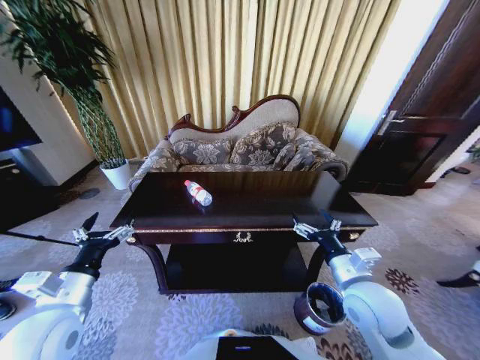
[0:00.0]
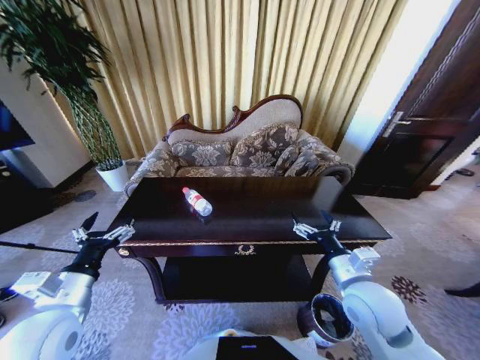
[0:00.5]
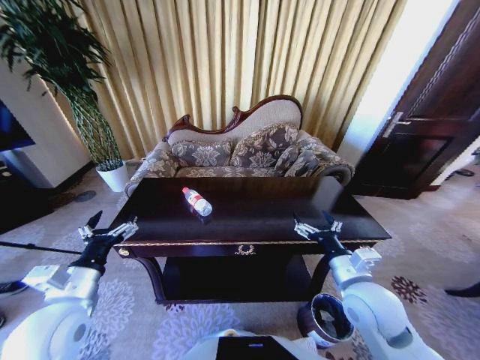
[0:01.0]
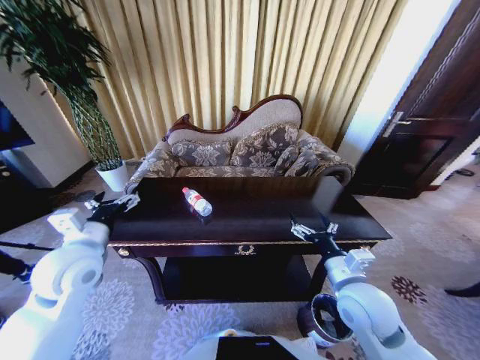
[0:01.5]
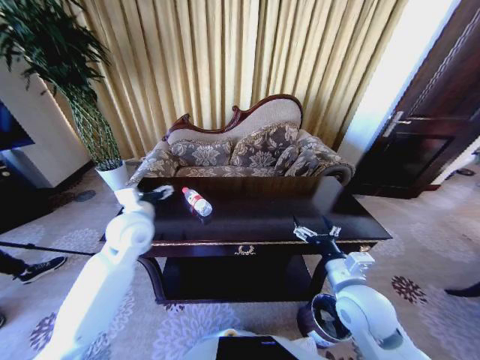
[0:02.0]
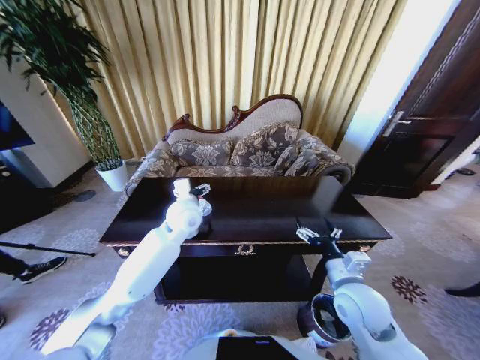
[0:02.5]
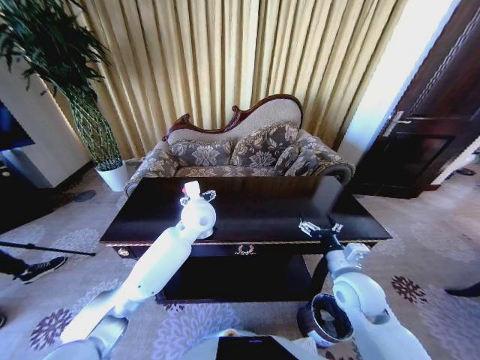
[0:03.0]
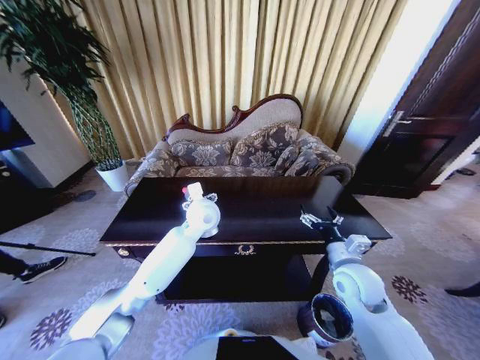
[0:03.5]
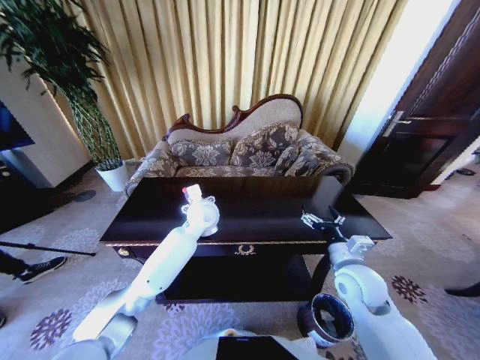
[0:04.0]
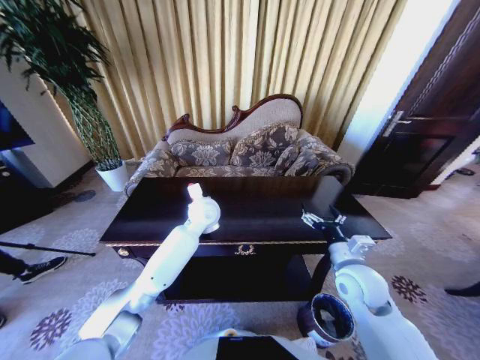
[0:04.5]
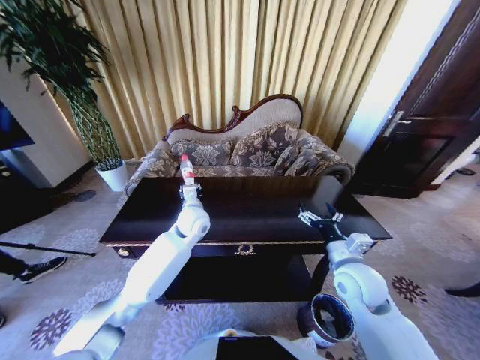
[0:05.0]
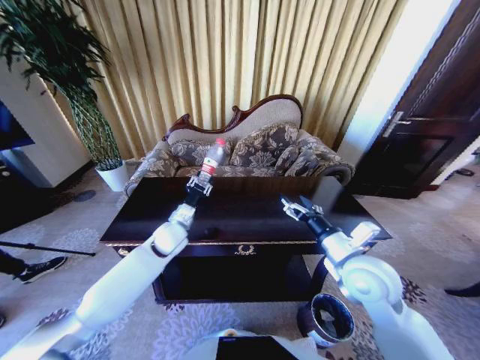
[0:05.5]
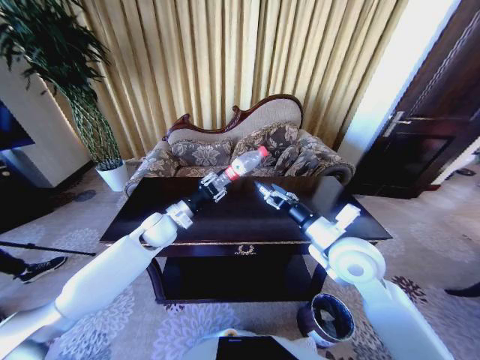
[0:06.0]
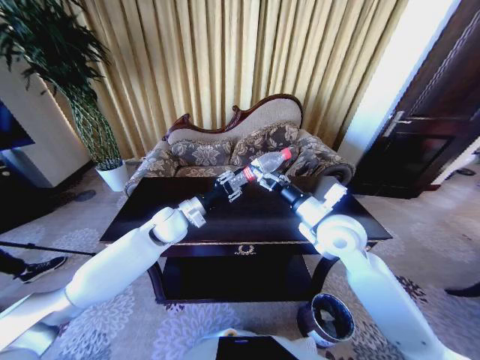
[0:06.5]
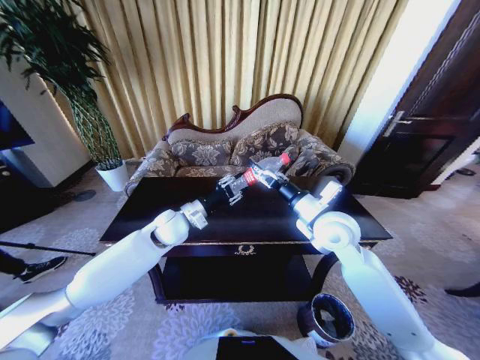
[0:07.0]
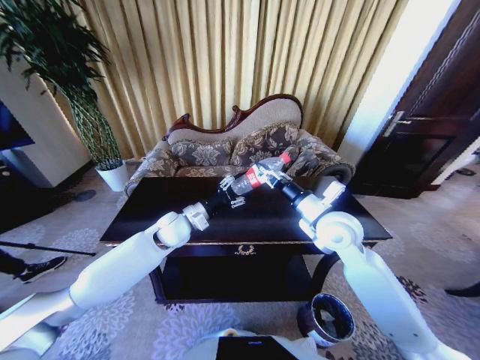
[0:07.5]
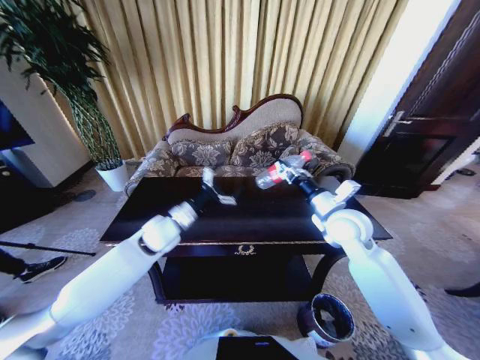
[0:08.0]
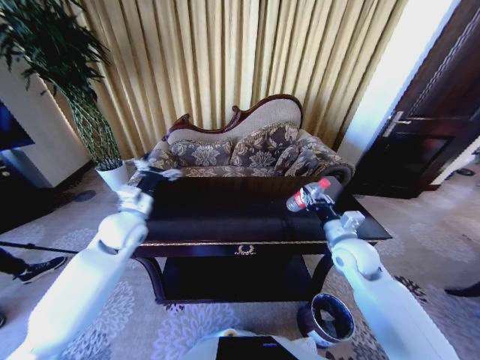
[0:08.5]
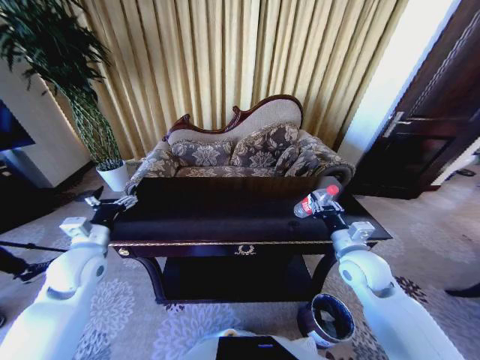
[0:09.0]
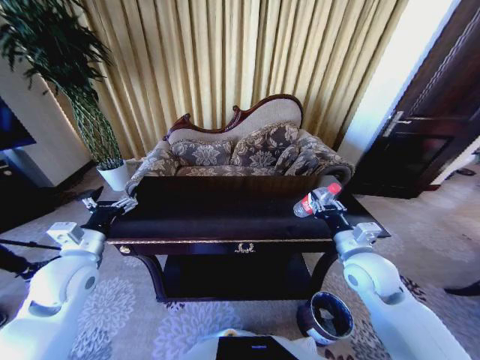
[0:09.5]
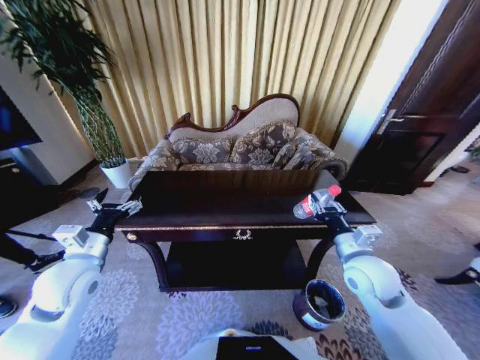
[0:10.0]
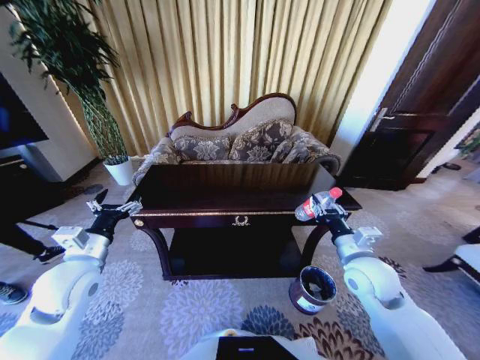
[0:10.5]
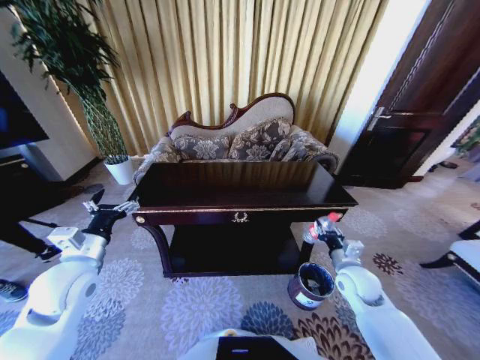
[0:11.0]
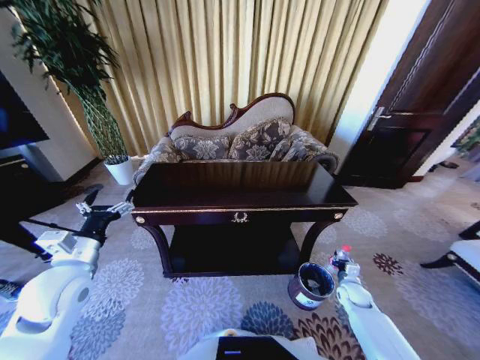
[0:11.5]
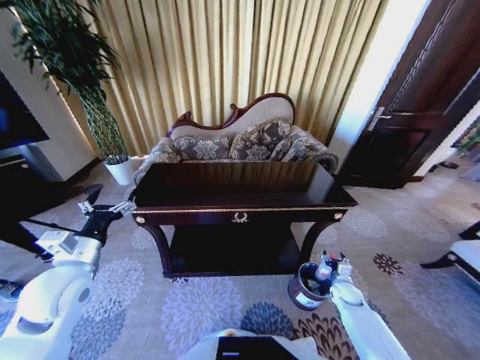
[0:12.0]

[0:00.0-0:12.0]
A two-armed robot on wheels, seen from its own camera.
Task of the whole recording: Move to the front of the table and place the trash on the table into the trash bin.
0:00.0 to 0:02.0: The left gripper moves forward, roughly 20 cm.
0:02.0 to 0:04.0: The right gripper moves forward, roughly 5 cm, while the left gripper travels to the right and forward by approximately 20 cm.
0:04.0 to 0:06.0: The left gripper heads to the left, covering roughly 15 cm, and closes up; the right gripper is displaced upward and to the left by about 10 cm.
0:06.0 to 0:08.0: The left gripper opens up. Meanwhile the right gripper travels forward by roughly 10 cm, and closes its fingers.
0:08.0 to 0:10.0: The left gripper goes approximately 20 cm to the left and backward. Meanwhile the right gripper shifts roughly 10 cm backward and downward.
0:10.0 to 0:12.0: The right gripper is displaced downward and to the right by about 30 cm.

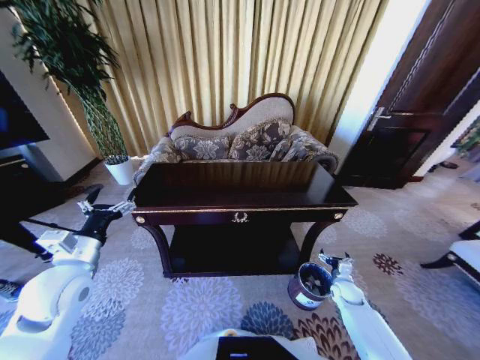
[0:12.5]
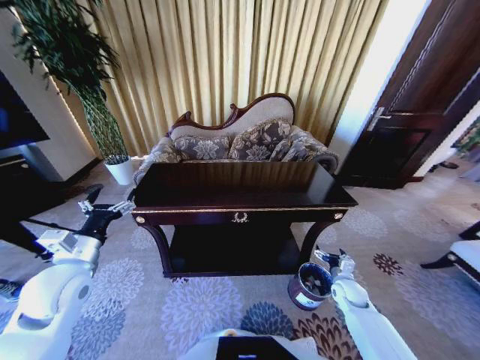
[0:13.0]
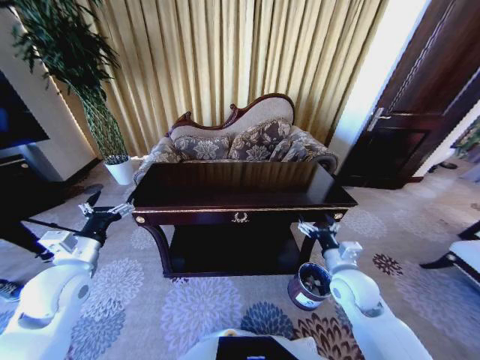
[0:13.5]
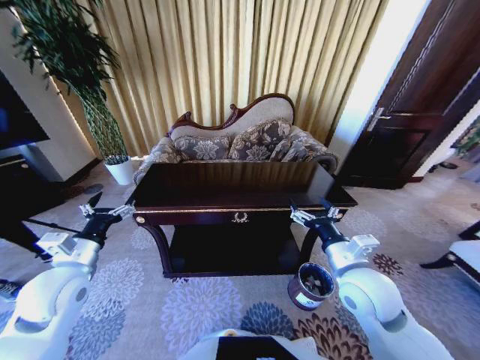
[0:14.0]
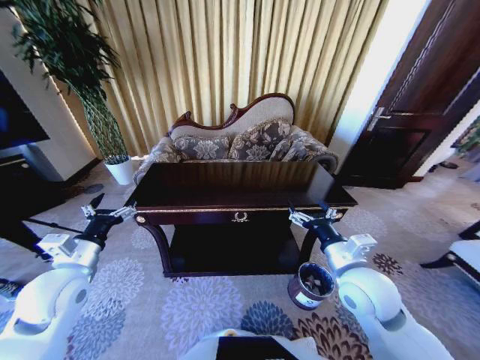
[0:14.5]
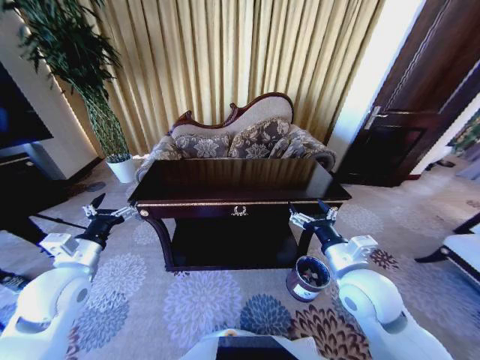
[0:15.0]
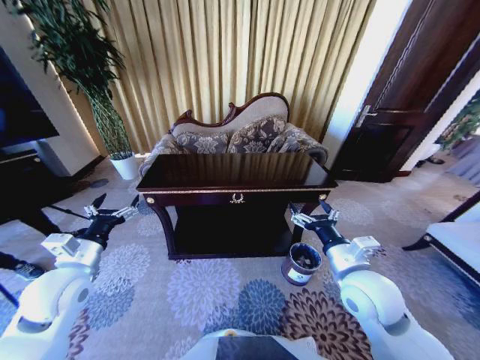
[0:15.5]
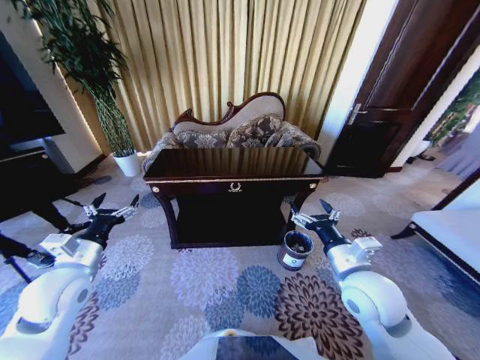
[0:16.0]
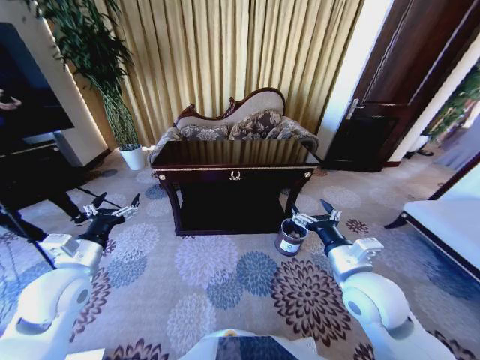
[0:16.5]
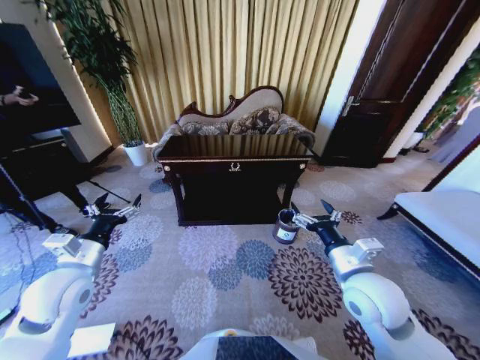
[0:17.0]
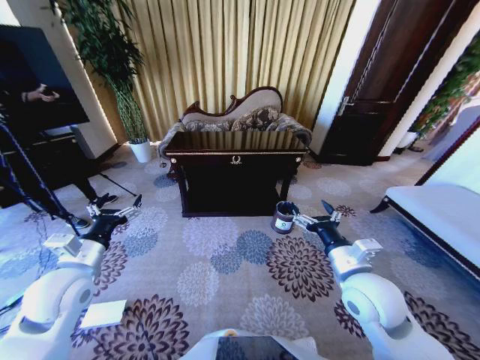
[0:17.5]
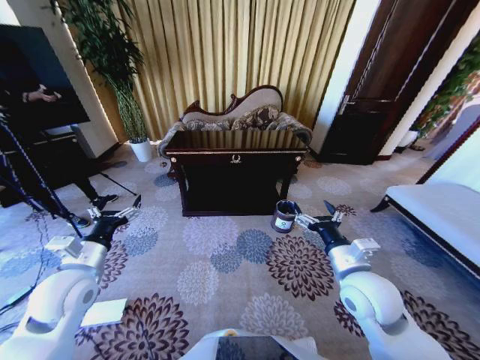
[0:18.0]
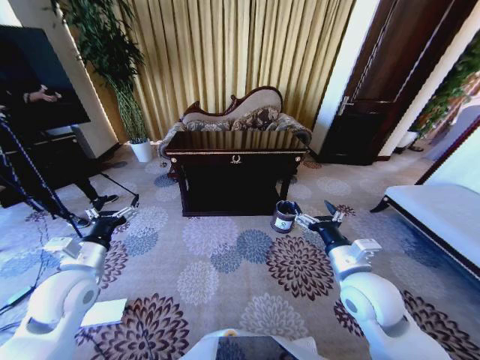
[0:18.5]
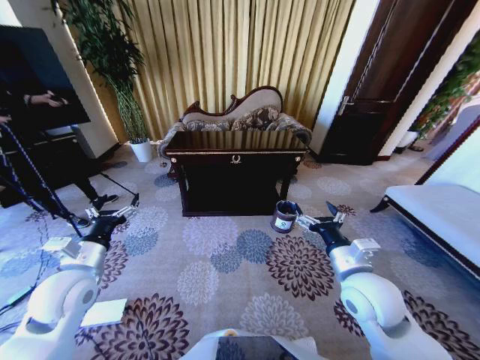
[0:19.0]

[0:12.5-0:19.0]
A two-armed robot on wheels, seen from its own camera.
Task of the whole recording: Move to the front of the table and place the trash on the table into the trash bin.
0:12.5 to 0:14.5: The right gripper shifts about 35 cm upward and to the left.

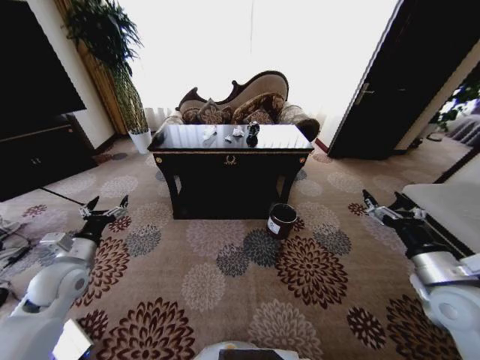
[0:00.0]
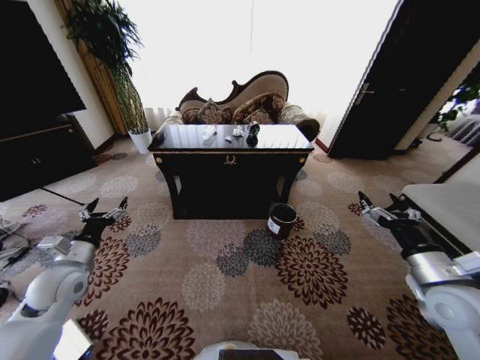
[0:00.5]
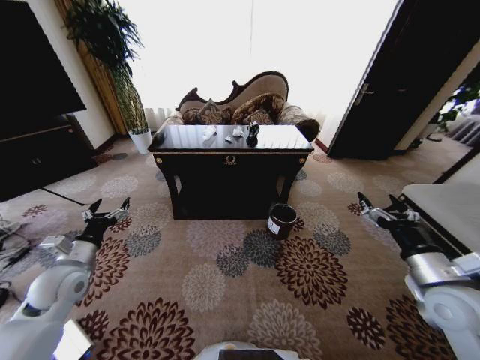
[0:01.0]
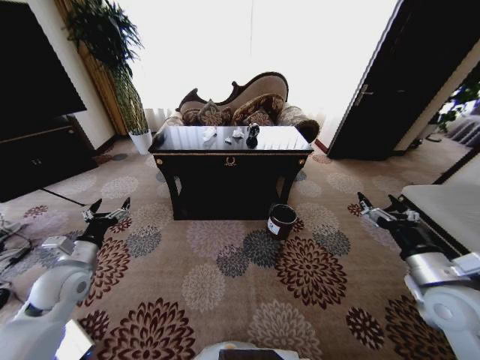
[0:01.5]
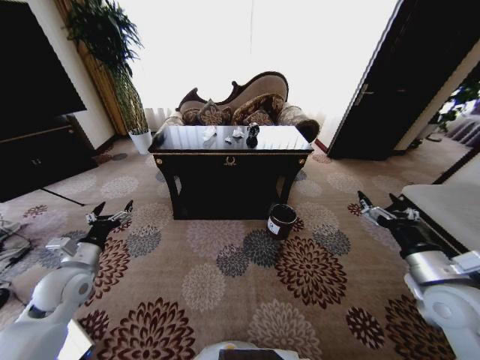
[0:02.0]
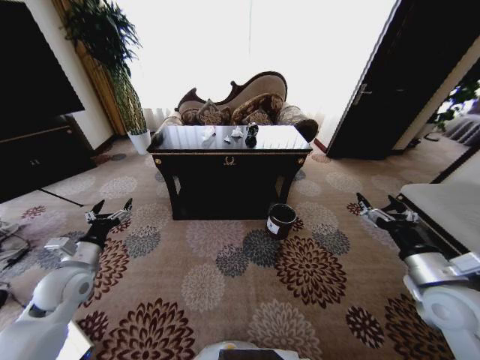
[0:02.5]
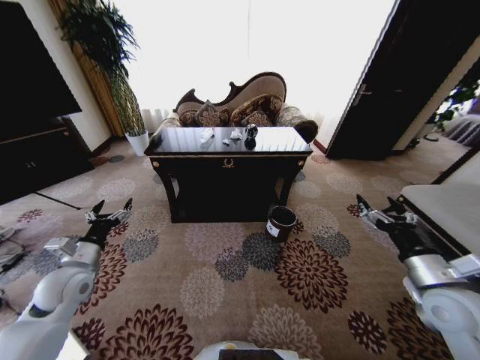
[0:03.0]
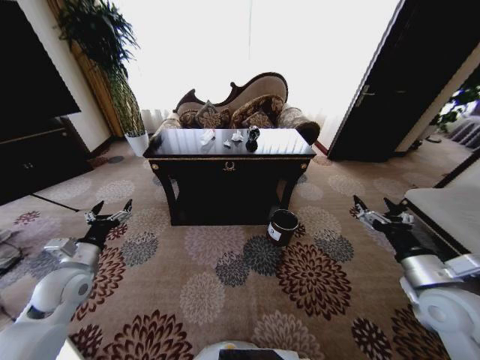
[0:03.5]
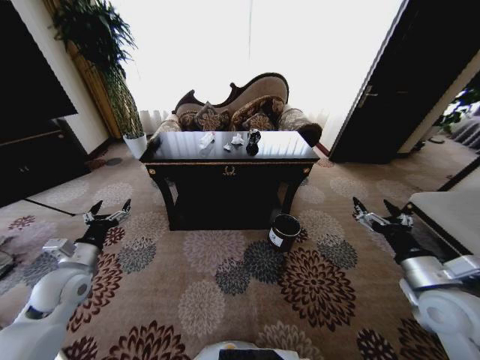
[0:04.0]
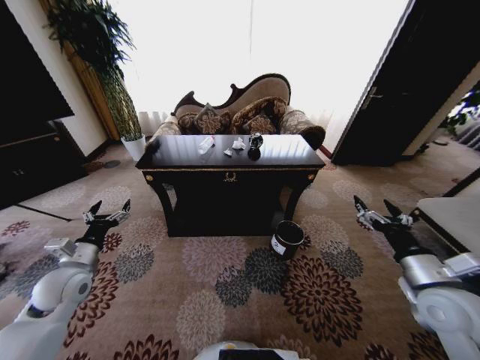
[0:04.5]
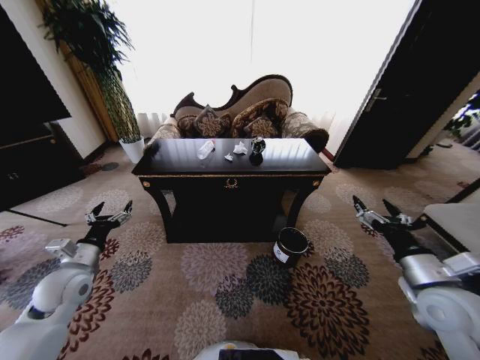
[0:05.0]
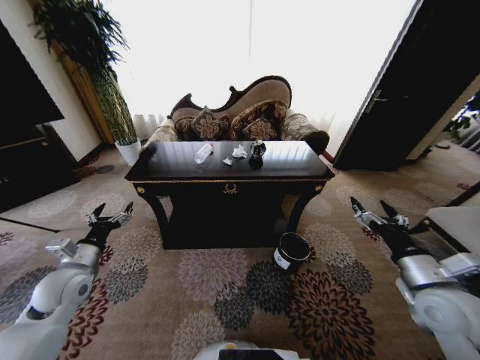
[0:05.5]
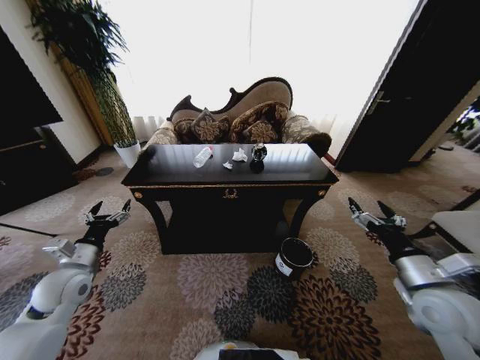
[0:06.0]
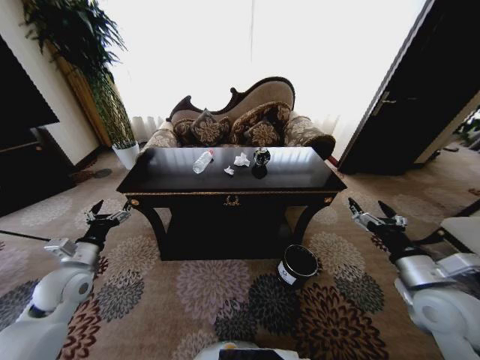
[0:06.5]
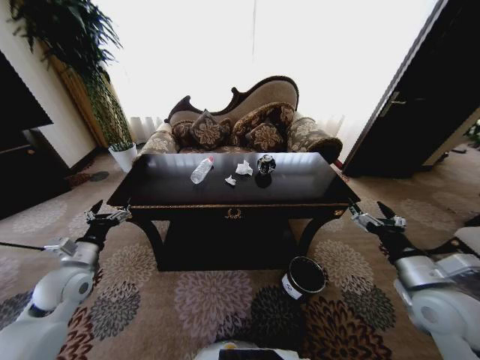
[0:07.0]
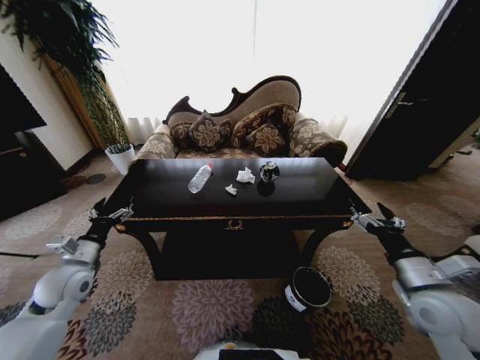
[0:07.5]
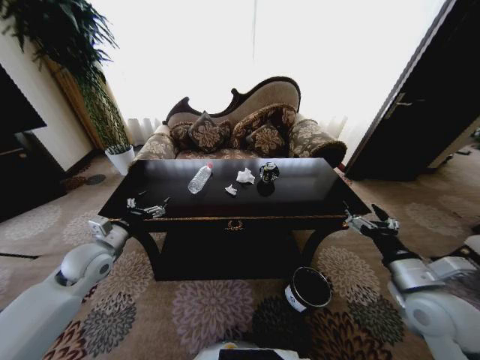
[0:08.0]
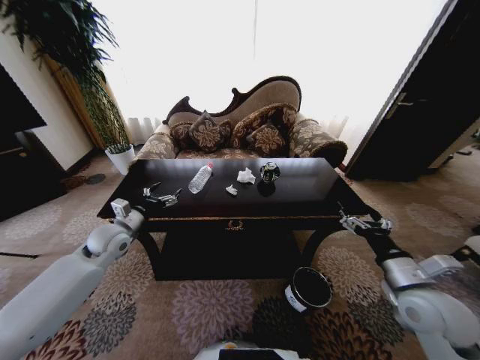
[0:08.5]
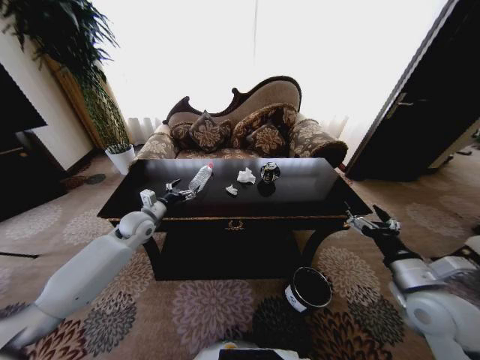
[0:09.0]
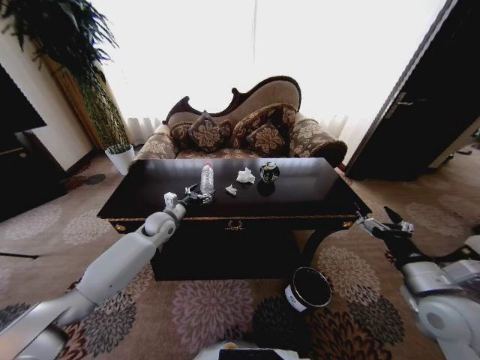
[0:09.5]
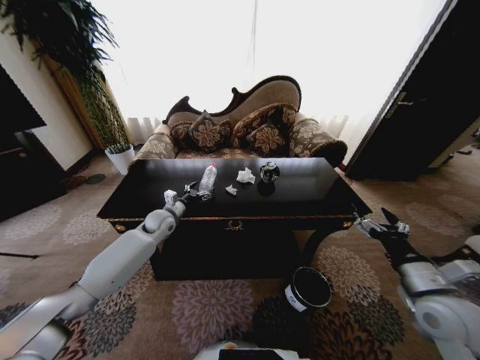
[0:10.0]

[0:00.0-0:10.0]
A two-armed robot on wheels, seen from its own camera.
Task of the whole recording: Move to the front of the table and place the trash on the table into the trash bin.
0:06.0 to 0:08.0: The left gripper shifts about 5 cm forward.
0:08.0 to 0:10.0: The left gripper moves forward and to the right, roughly 20 cm.
